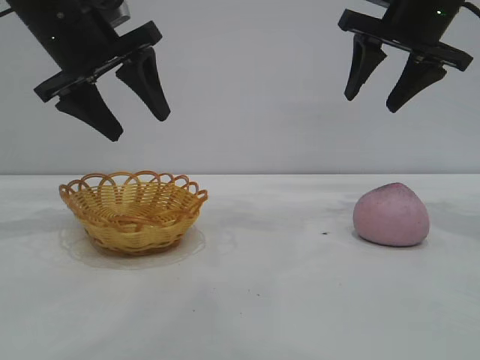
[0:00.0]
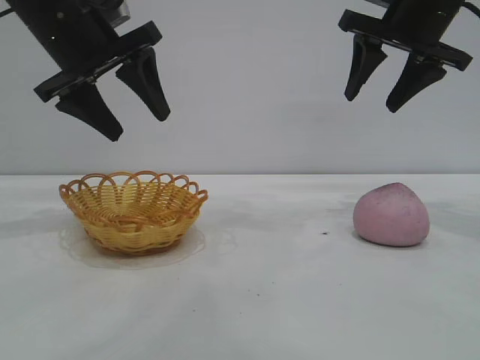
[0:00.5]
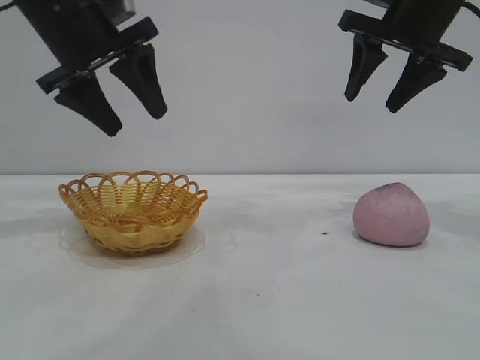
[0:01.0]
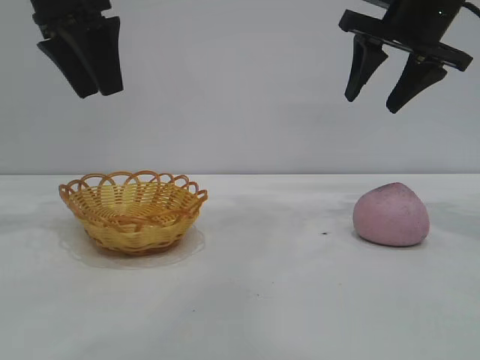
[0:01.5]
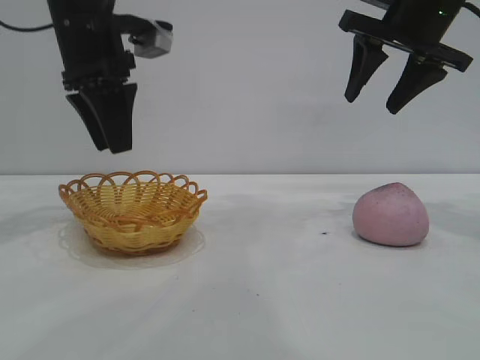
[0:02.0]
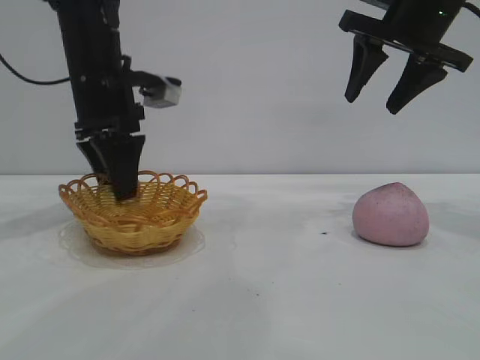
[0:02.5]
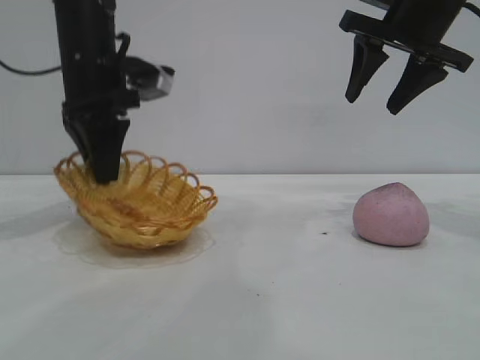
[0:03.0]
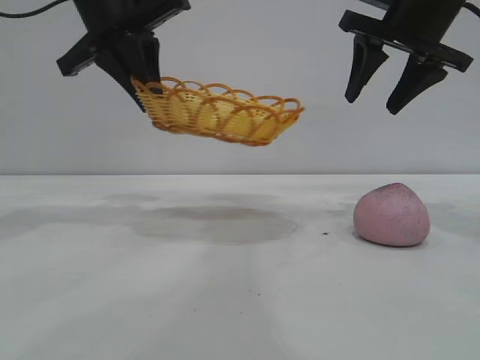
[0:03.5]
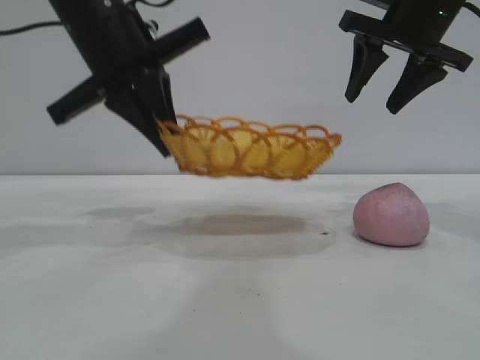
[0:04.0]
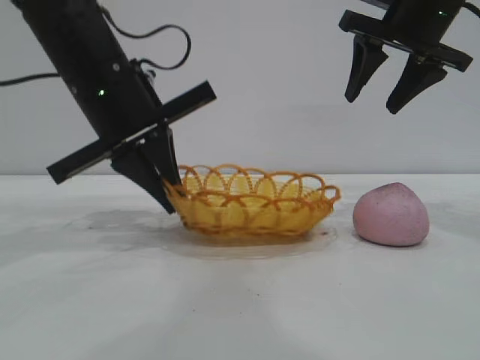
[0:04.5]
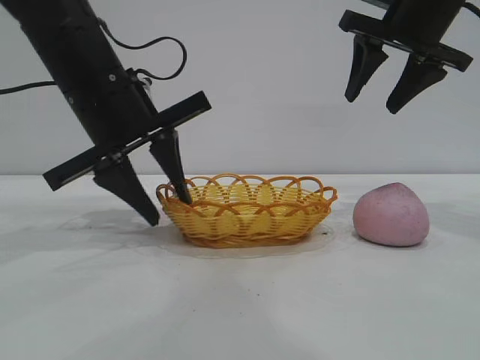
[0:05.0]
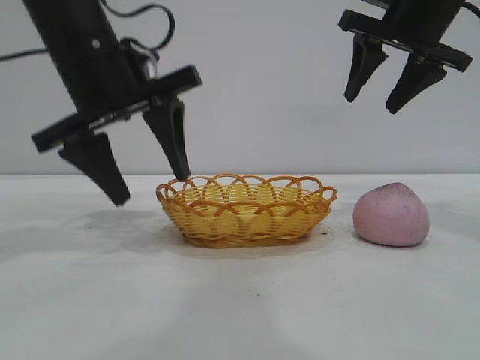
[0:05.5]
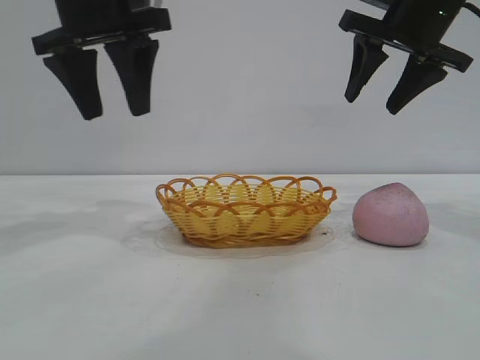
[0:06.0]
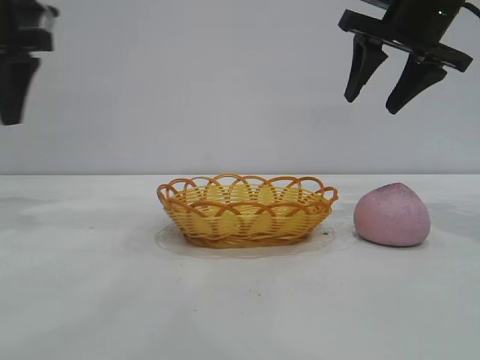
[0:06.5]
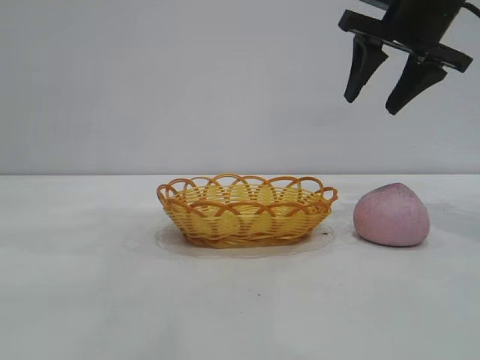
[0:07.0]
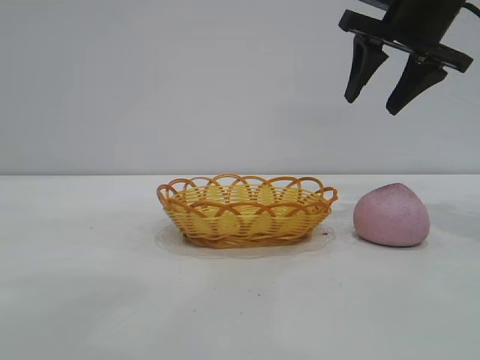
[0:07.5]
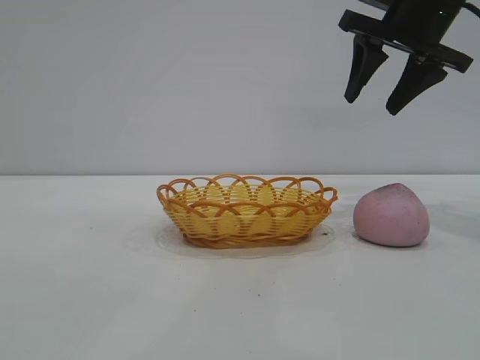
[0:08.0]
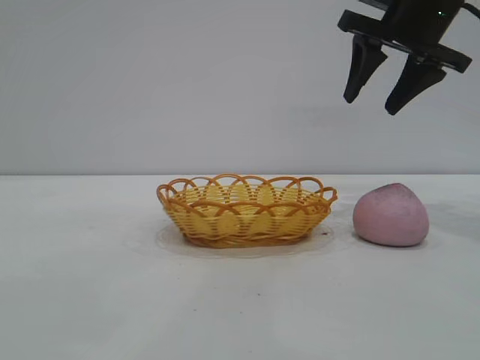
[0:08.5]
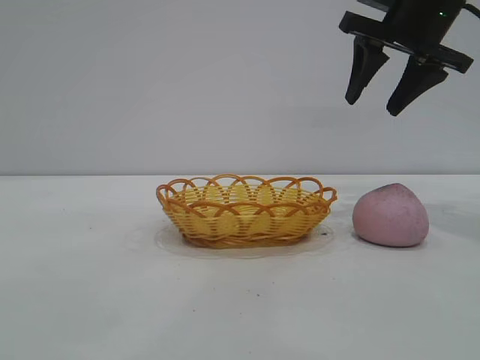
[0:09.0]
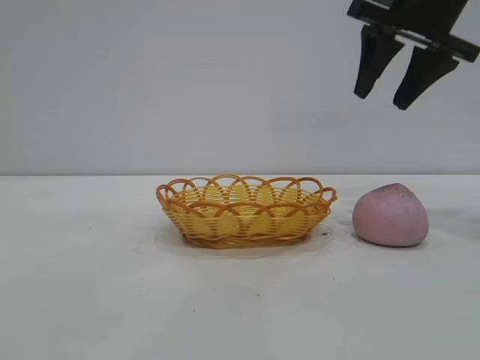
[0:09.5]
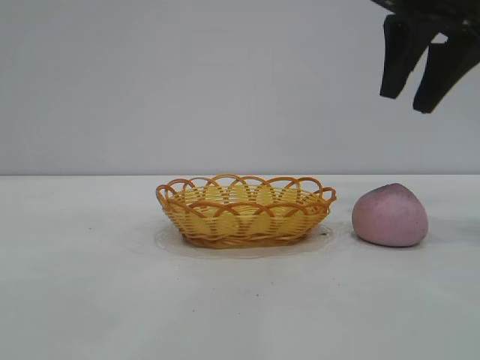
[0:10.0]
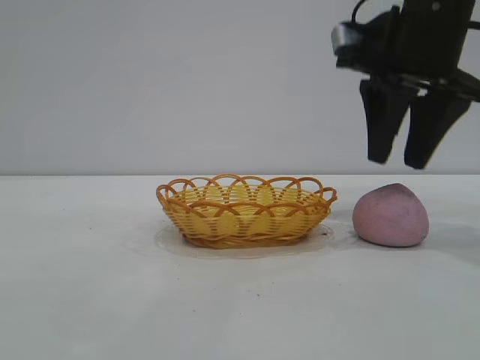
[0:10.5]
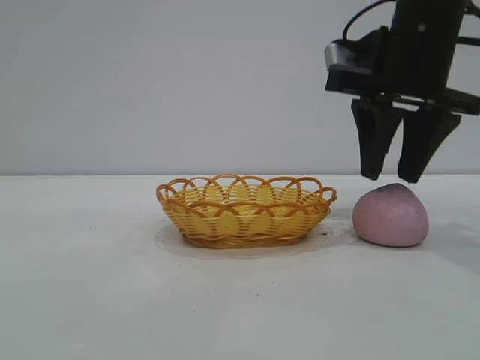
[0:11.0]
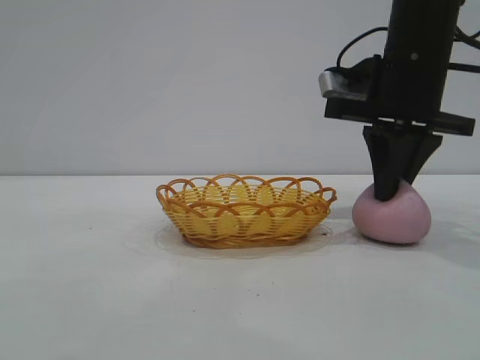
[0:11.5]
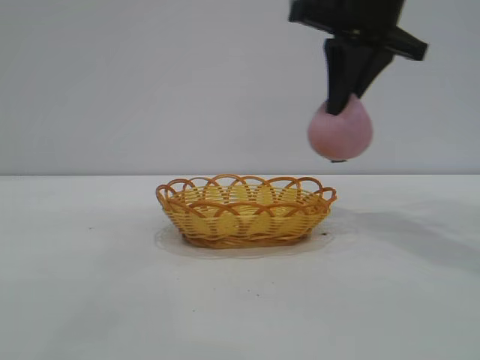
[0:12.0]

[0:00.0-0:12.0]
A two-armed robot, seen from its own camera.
Task of the whole recording: pick up the peach and put it into the basket.
Step, 0:00.0 to 0:05.5: Move the basket to the center of view.
Step, 0:06.0 to 0:11.5: Pick up the peach.
